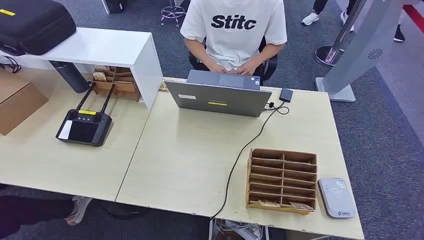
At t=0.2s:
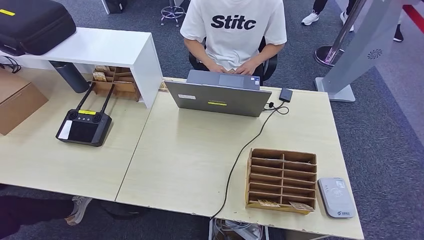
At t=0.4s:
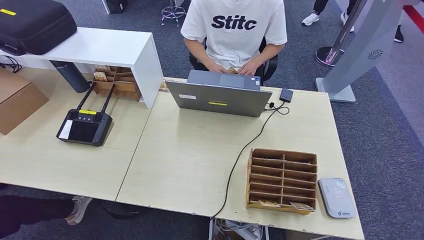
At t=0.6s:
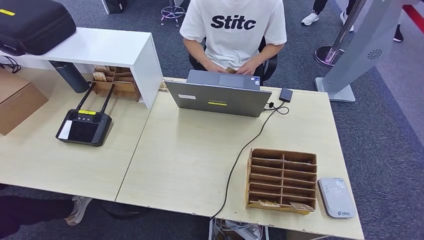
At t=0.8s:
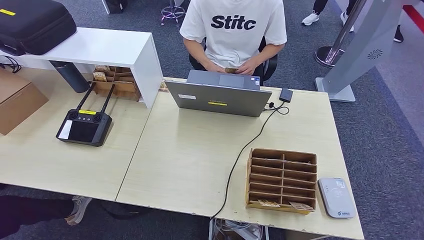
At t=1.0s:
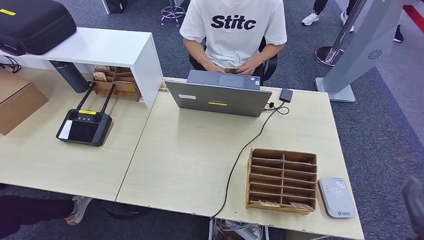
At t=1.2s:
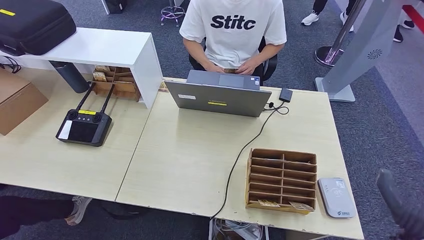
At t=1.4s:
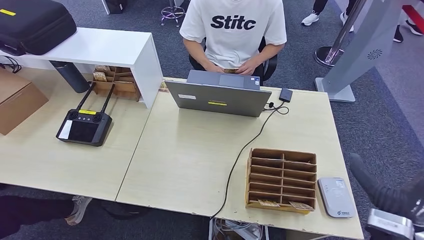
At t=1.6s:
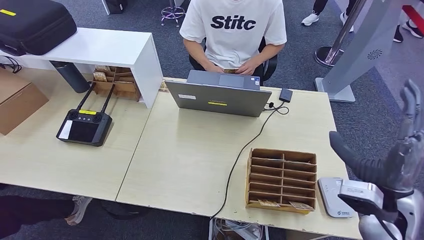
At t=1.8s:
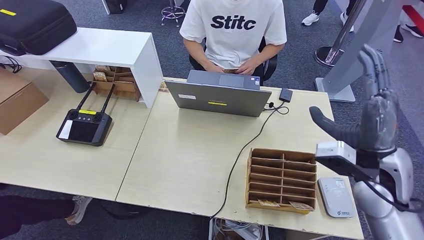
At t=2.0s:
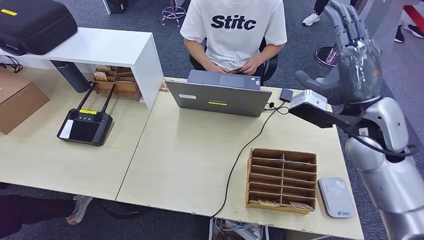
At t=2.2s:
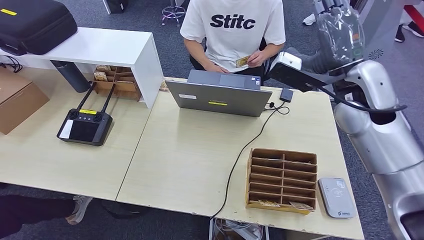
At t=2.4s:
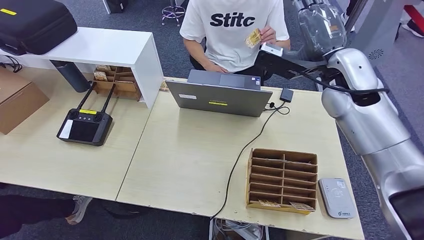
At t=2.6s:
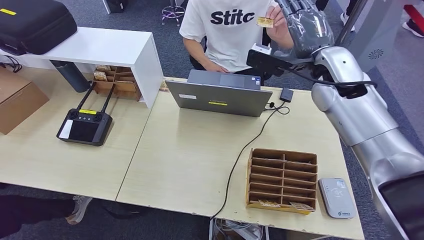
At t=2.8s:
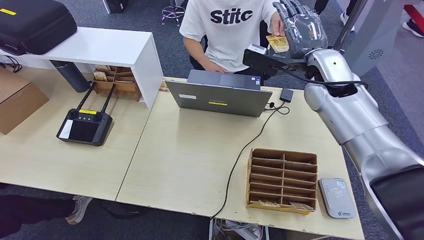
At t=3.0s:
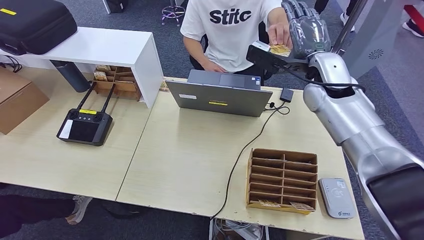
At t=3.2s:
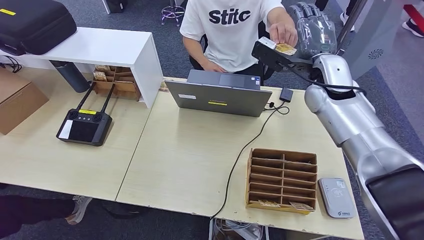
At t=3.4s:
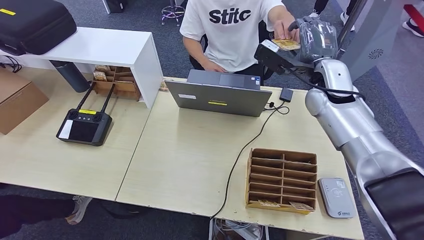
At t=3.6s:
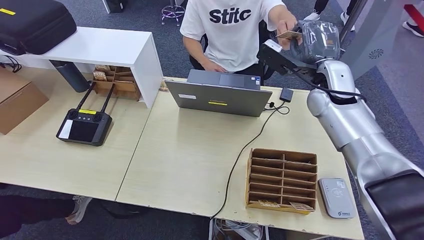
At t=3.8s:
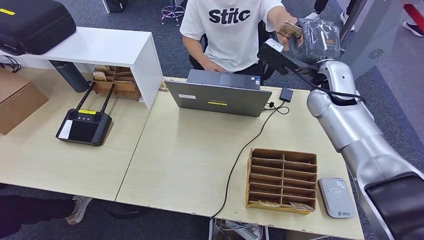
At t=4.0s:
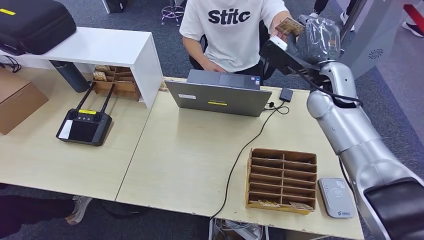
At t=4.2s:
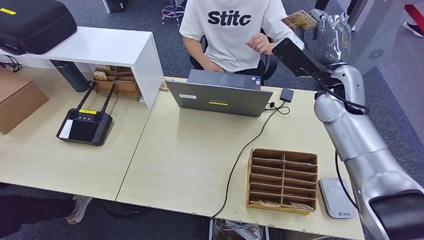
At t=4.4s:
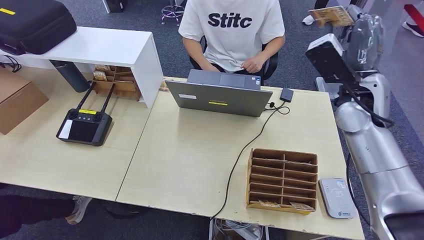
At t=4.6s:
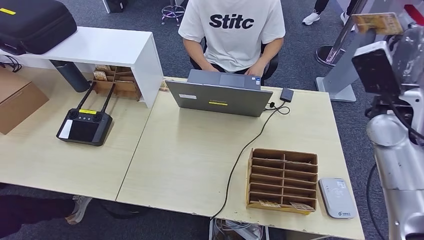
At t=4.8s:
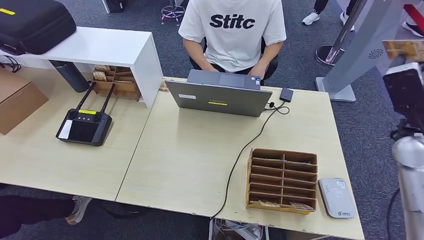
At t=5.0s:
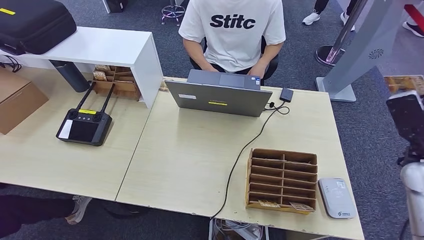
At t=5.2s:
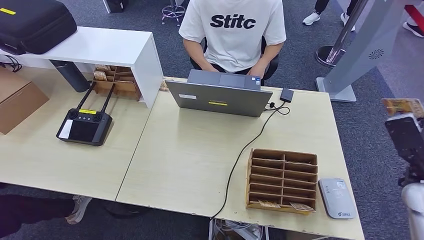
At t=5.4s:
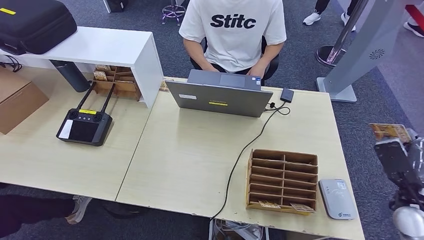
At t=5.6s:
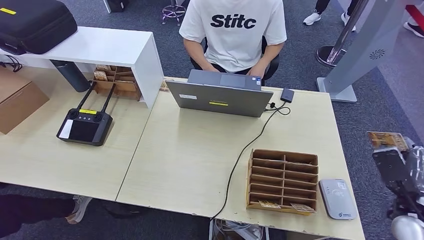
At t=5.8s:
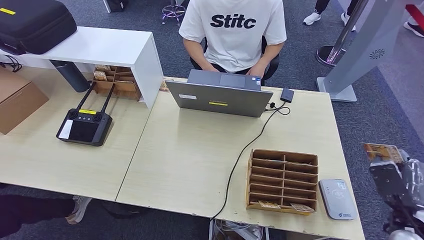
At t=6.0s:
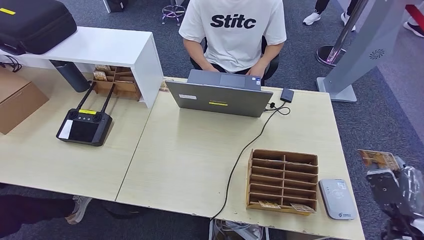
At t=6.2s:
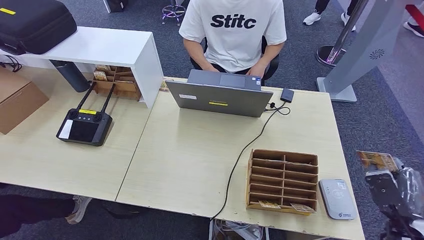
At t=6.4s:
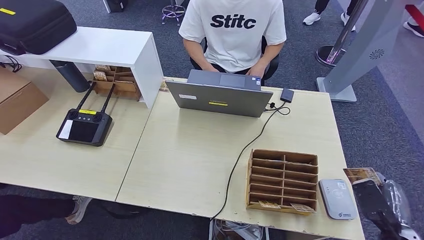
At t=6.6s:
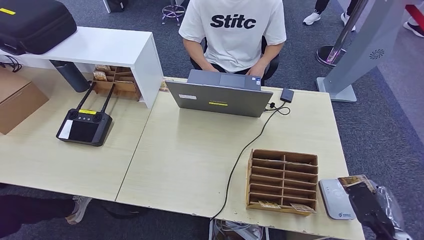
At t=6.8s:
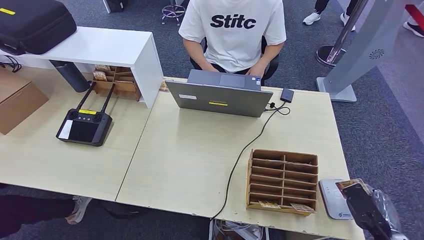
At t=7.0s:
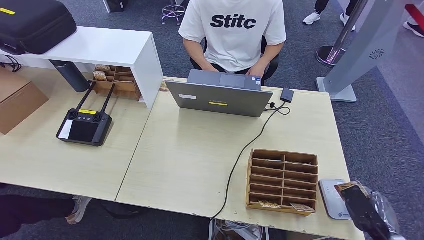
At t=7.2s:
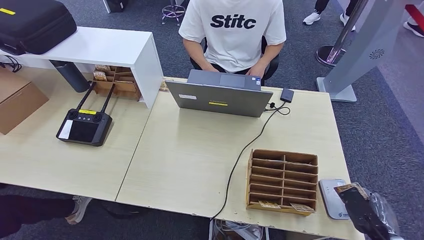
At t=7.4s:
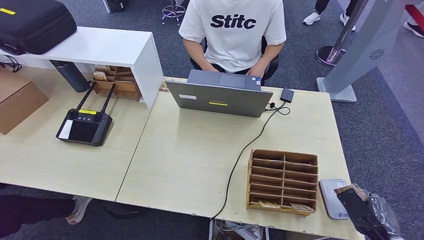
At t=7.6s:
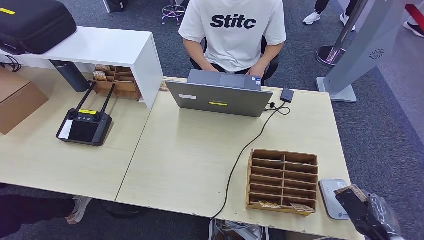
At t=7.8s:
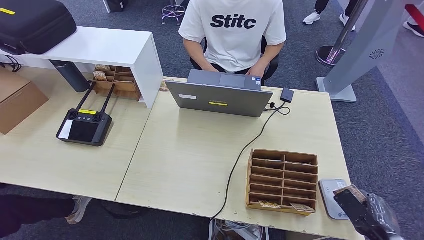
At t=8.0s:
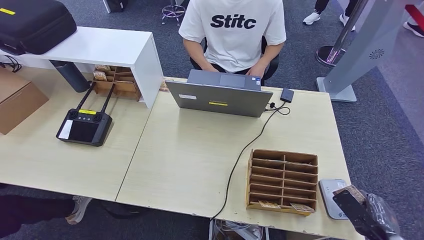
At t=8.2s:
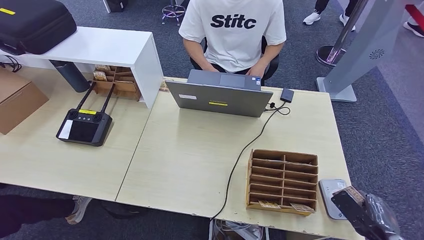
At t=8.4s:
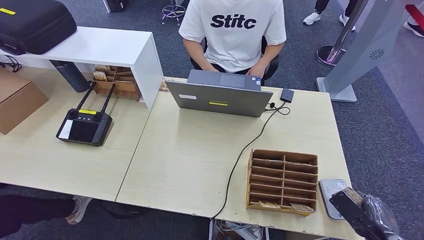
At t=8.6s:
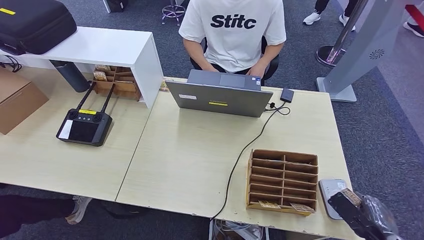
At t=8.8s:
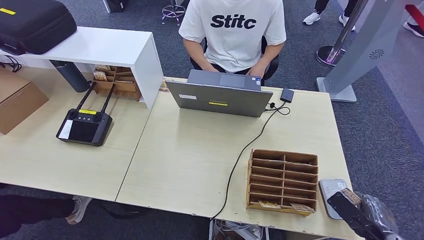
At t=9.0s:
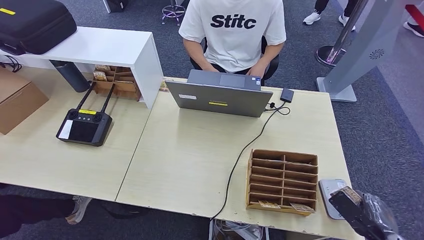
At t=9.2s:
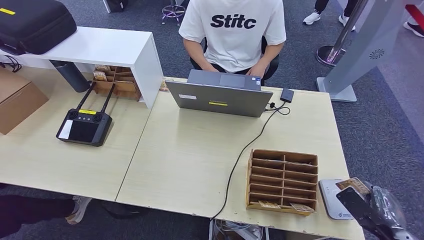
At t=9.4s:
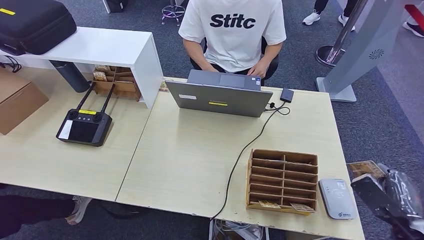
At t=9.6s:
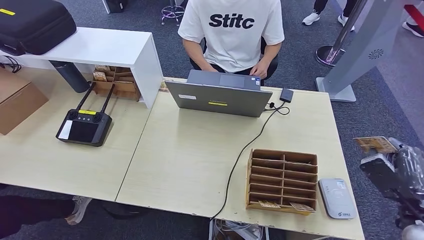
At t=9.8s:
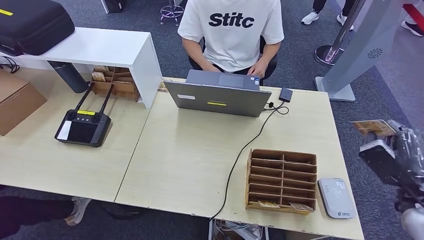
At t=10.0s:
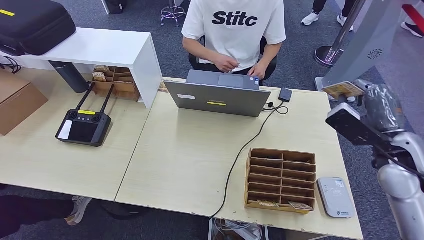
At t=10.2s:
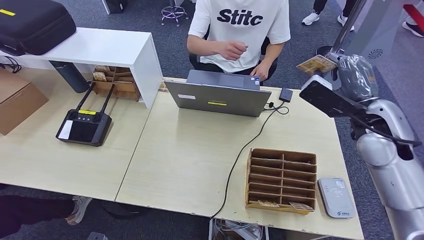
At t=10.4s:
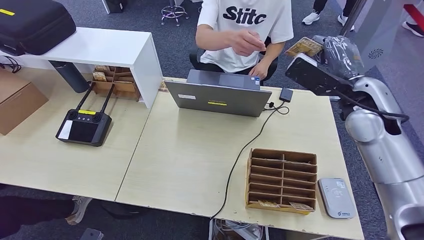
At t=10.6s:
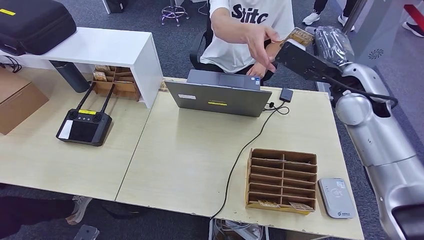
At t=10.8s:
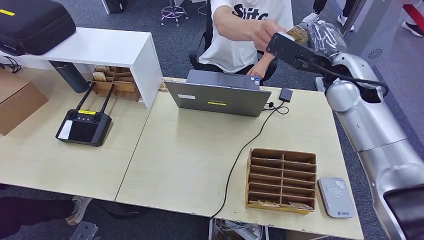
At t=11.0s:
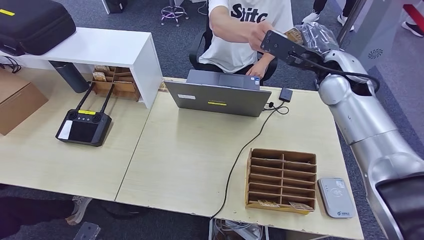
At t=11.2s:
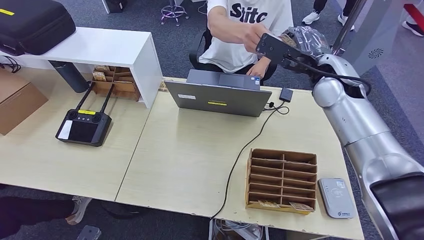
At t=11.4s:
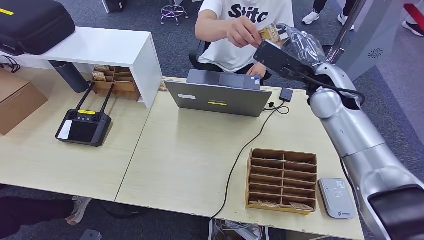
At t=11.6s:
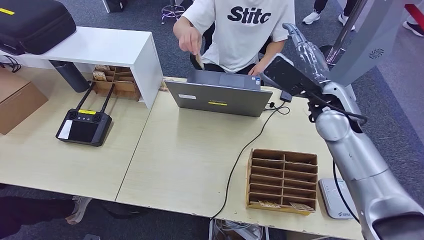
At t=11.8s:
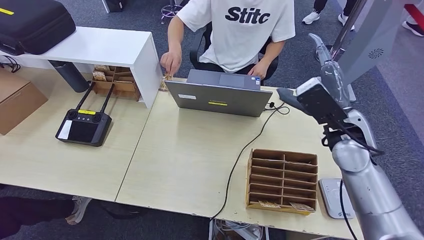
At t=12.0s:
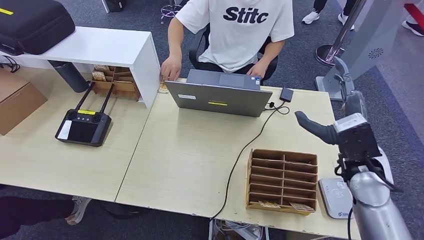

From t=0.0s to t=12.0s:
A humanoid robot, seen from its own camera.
Step, from t=0.0s to t=4.2s: Take the ID card from the person's hand.
Step, from t=4.4s to t=7.8s: Place the ID card on the card reader.
Step, from t=8.0s to t=12.0s: Hand the ID card to the person.
From t=1.6s to t=3.0s: The left hand moves downward, some 5 cm; the right hand moves forward, upward and to the left, roughly 30 cm.
From t=3.0s to t=4.4s: The right hand shifts approximately 5 cm to the right. The left hand moves upward, some 5 cm.
From t=4.4s to t=6.0s: The right hand is displaced backward, downward and to the right by roughly 35 cm. Meanwhile the left hand travels upward by about 10 cm.
From t=6.0s to t=7.6s: The right hand shifts approximately 5 cm downward.
From t=7.6s to t=9.0s: The hands make only small movements.
From t=10.4s to t=12.0s: The right hand is displaced downward and backward by approximately 15 cm.

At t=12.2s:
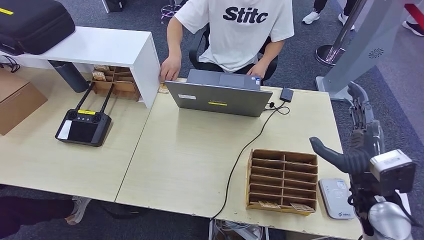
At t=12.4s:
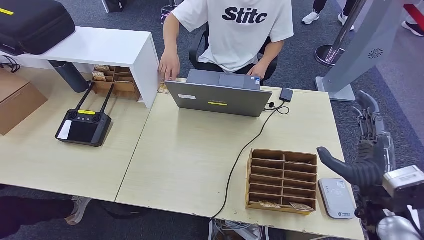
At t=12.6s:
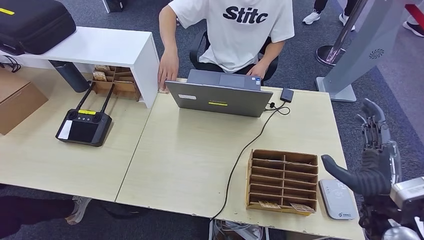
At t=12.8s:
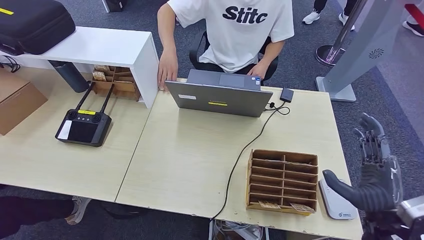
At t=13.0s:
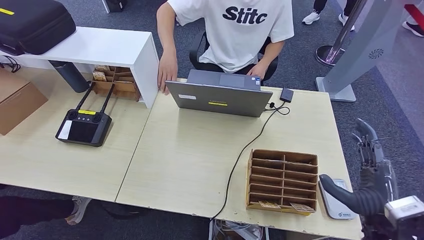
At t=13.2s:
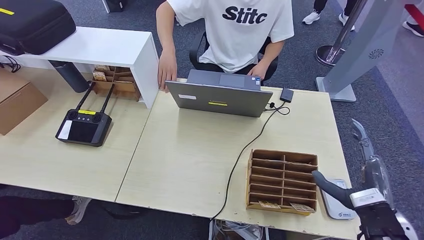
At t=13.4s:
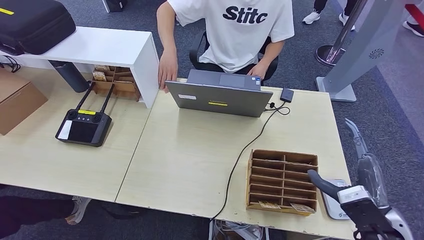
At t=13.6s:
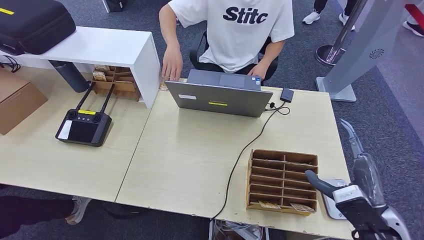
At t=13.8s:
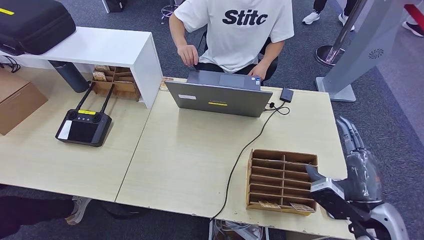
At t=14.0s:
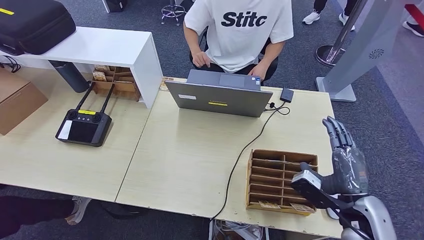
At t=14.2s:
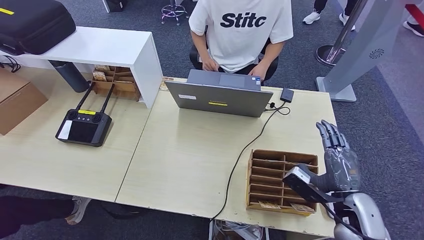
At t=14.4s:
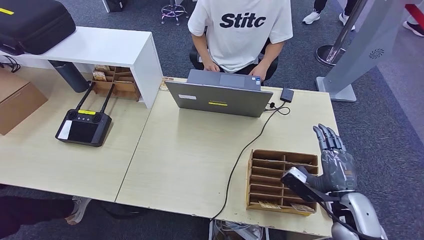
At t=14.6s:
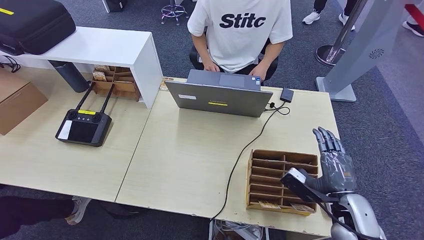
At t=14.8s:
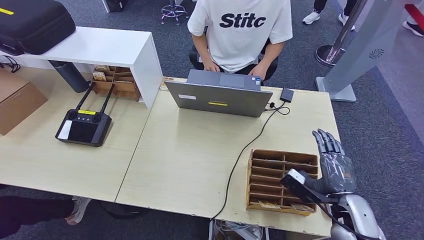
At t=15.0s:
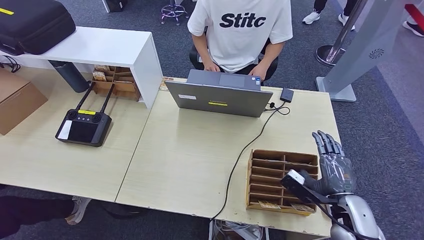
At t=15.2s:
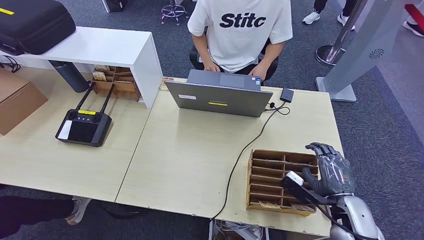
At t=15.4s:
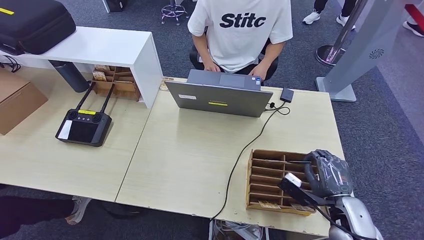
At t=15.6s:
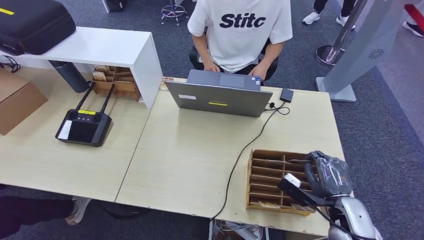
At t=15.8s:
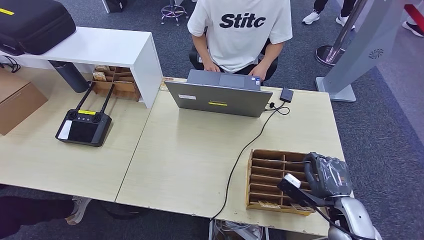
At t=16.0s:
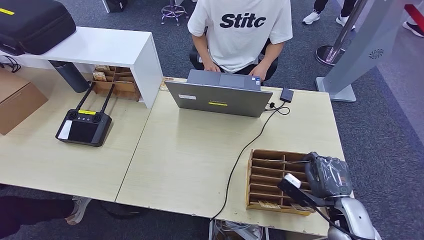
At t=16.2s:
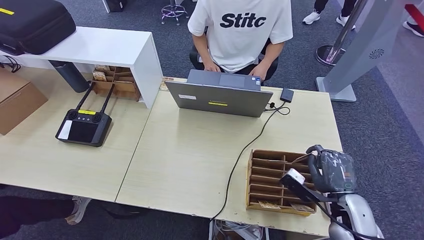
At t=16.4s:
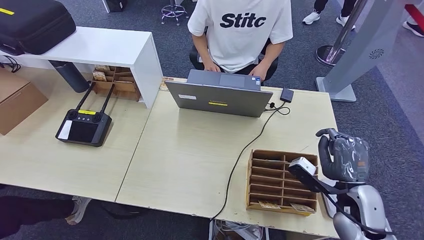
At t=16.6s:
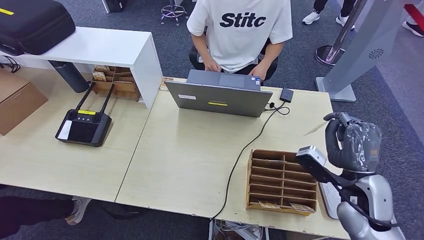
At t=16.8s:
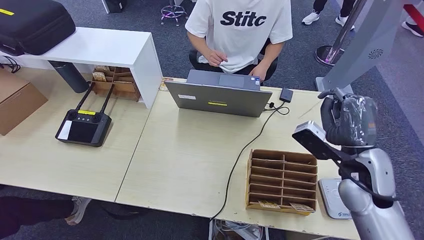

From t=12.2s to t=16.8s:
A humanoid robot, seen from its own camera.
From t=12.2s to t=13.8s: The right hand goes roughly 5 cm backward.
From t=13.8s to t=15.2s: The right hand goes some 5 cm downward.
From t=15.2s to t=16.8s: The right hand moves upward and forward, approximately 15 cm.
